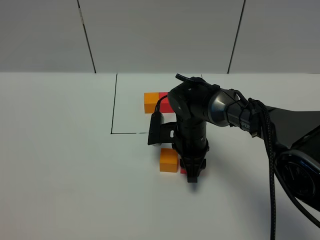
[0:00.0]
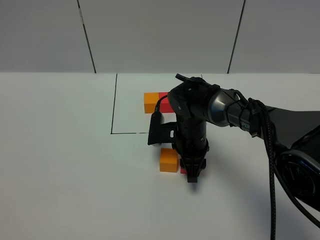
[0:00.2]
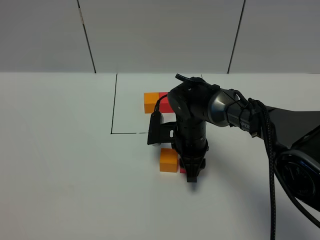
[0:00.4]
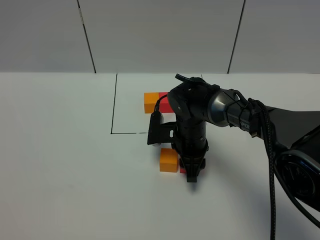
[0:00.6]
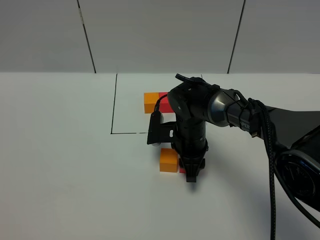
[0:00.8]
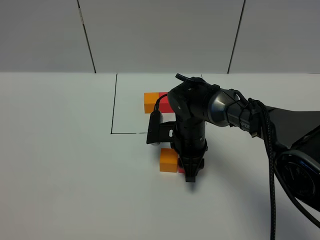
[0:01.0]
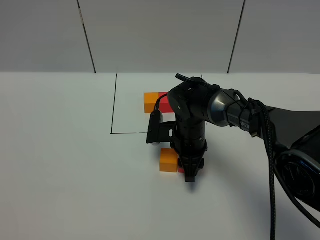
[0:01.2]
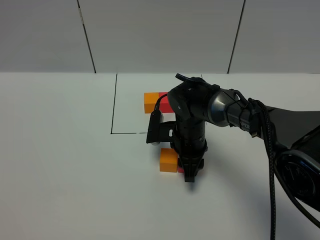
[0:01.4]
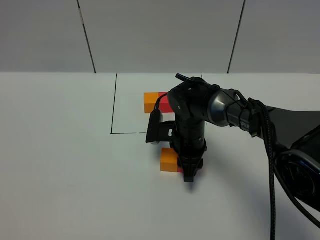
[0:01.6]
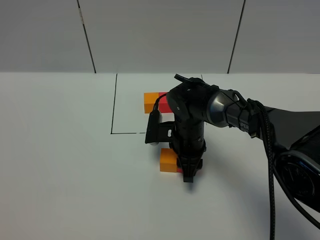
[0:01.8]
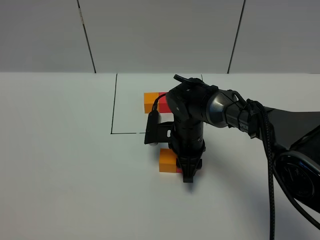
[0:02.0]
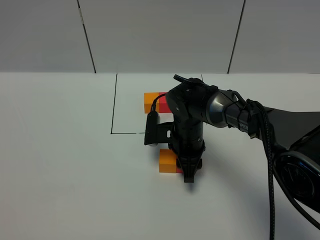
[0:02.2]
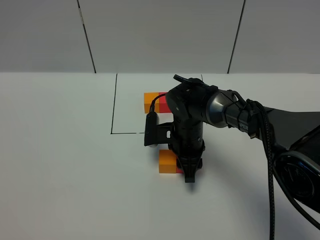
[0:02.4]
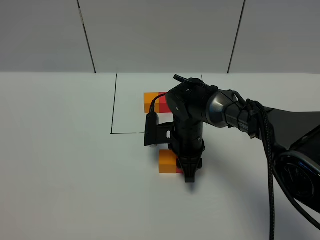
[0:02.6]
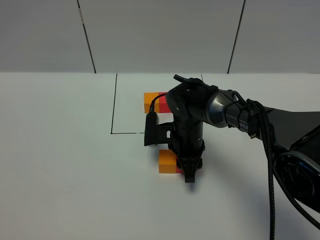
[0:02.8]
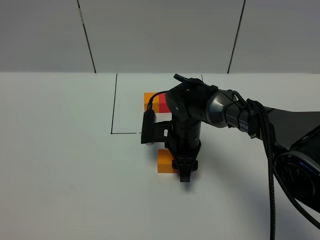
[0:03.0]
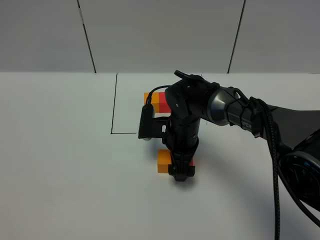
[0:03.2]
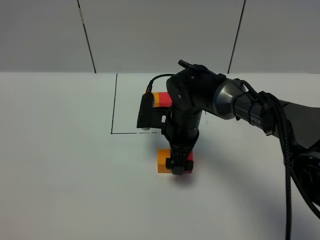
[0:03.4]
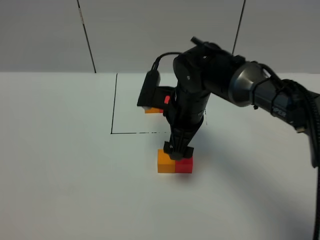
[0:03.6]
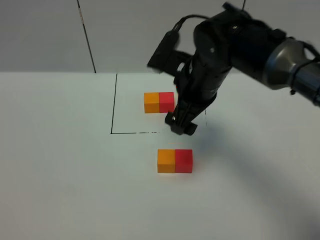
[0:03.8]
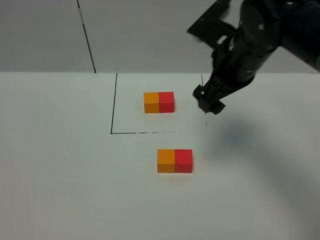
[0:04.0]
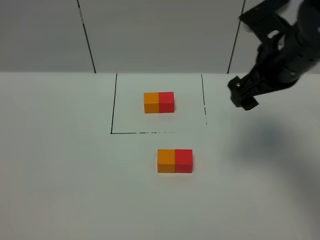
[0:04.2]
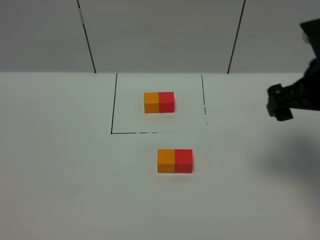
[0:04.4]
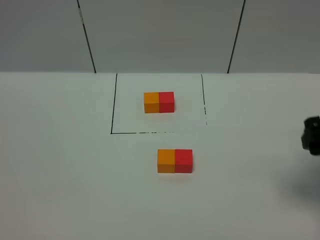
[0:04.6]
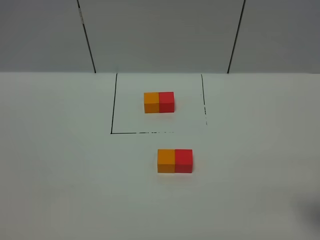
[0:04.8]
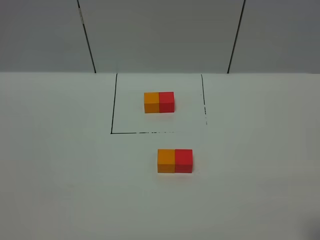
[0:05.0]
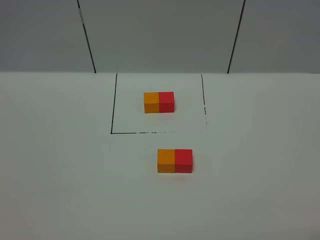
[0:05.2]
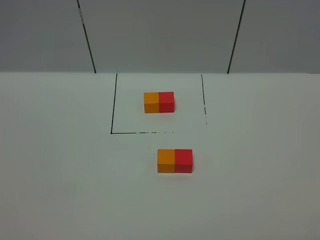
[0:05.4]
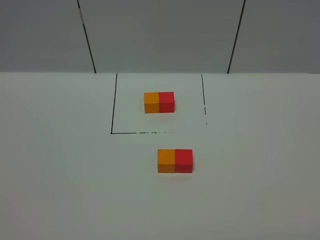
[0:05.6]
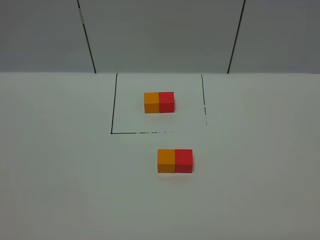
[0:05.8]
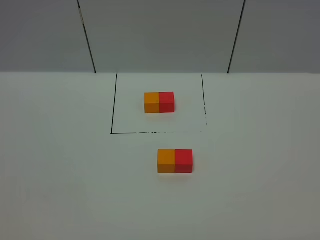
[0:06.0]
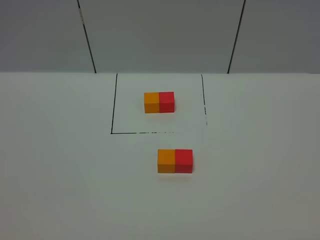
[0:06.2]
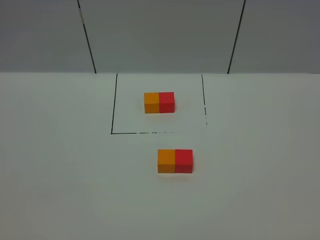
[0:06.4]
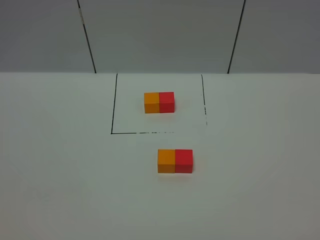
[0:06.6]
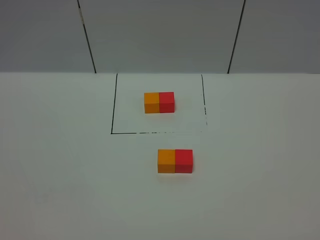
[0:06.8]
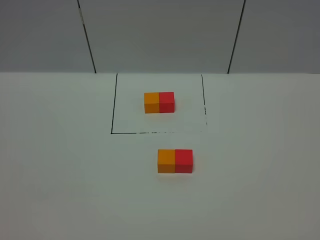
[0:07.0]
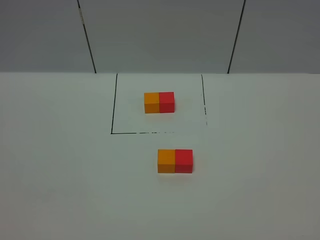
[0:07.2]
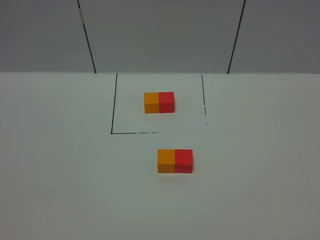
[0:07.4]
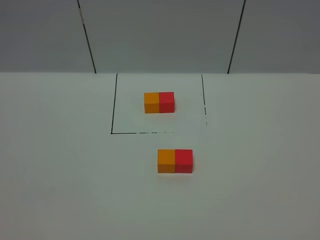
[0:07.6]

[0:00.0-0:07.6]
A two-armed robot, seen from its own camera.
Task of the whole recording: According to the building block template in front, assemble the scattered blocks together.
Step, 0:00.0 to 0:04.2: Put the red cube on the right of the orange cube.
0:00.0 to 0:01.6: Both grippers stay about where they are.
0:01.6 to 0:03.0: The grippers move only a little.
0:03.0 to 0:04.6: The right gripper heads to the right, upward and backward, covering approximately 35 cm, and opens up.
0:04.6 to 0:06.0: The right gripper shifts roughly 20 cm backward.

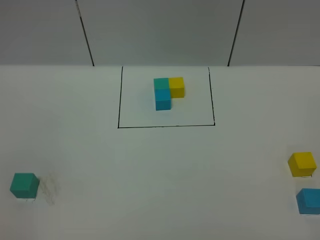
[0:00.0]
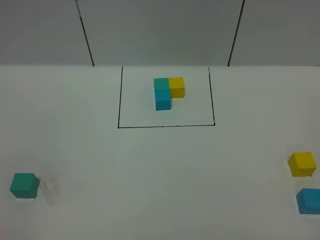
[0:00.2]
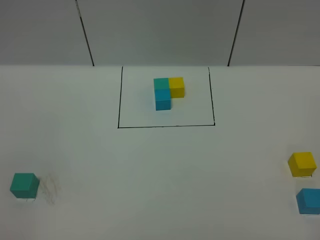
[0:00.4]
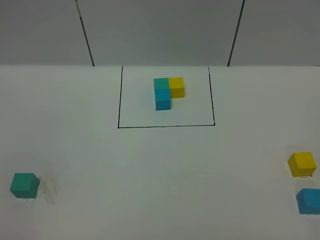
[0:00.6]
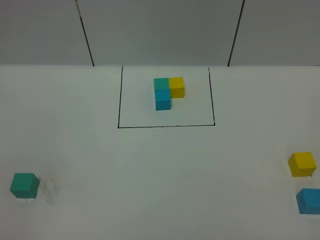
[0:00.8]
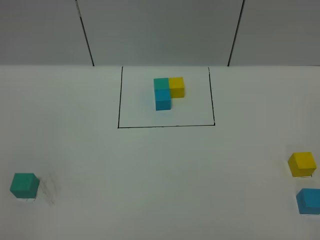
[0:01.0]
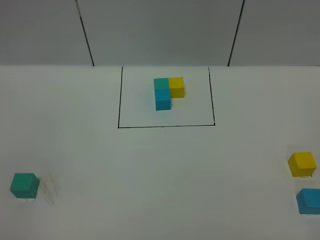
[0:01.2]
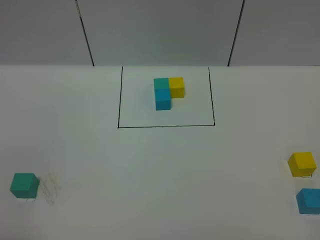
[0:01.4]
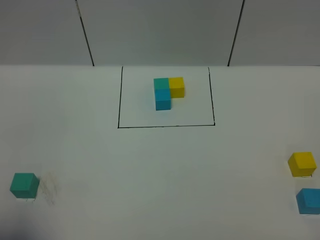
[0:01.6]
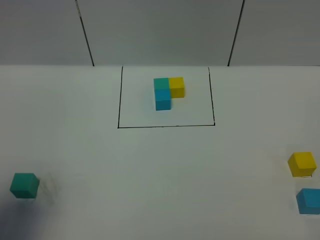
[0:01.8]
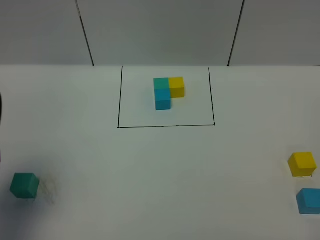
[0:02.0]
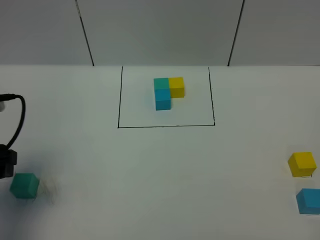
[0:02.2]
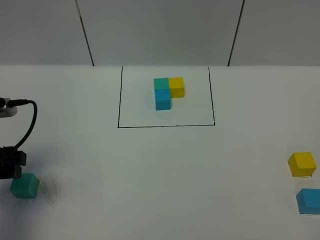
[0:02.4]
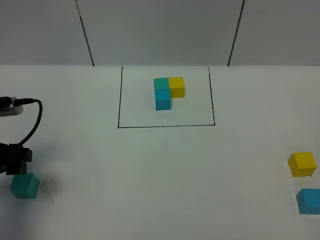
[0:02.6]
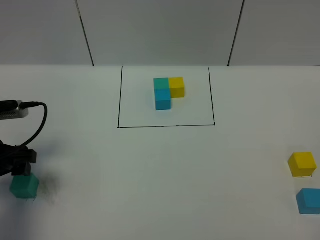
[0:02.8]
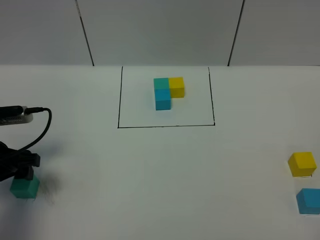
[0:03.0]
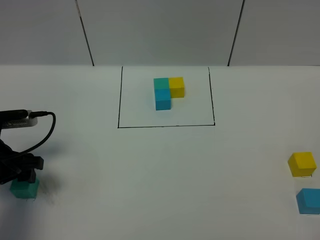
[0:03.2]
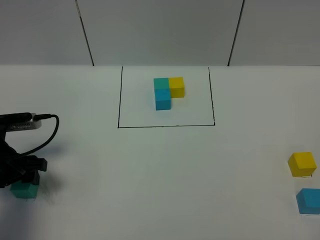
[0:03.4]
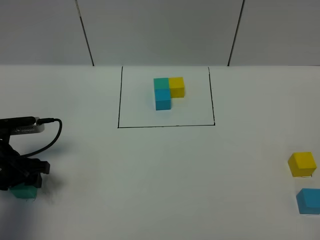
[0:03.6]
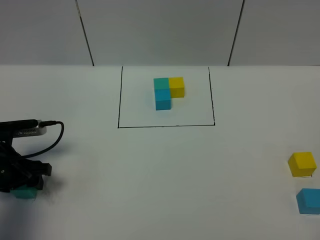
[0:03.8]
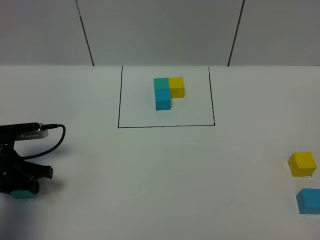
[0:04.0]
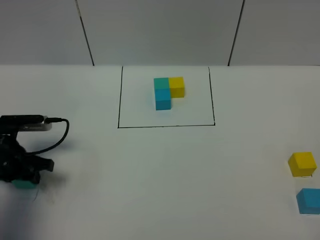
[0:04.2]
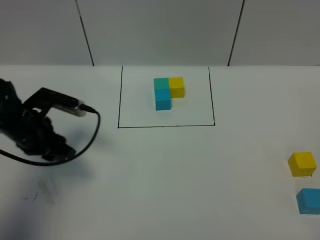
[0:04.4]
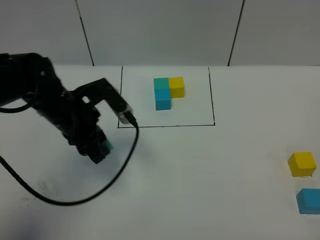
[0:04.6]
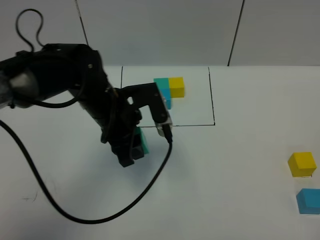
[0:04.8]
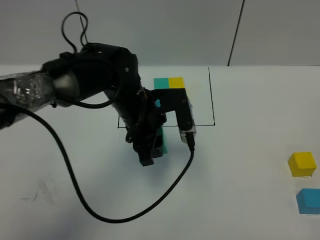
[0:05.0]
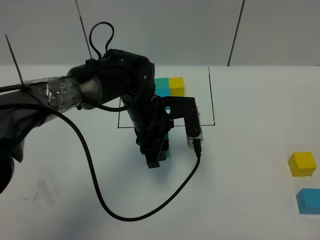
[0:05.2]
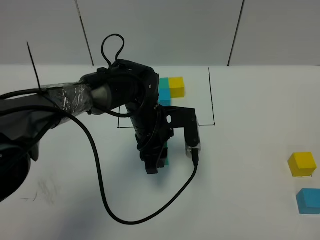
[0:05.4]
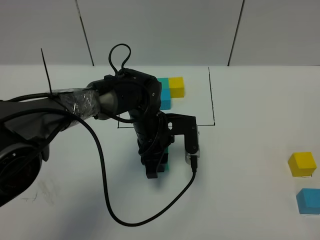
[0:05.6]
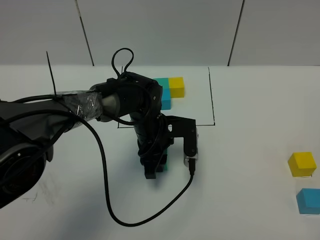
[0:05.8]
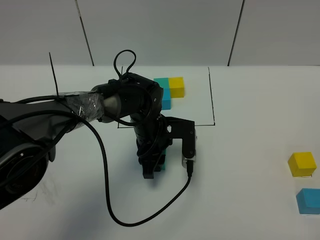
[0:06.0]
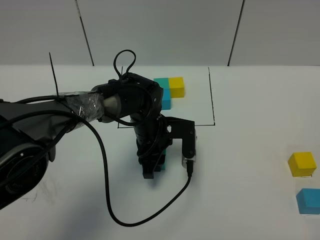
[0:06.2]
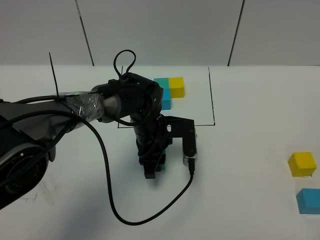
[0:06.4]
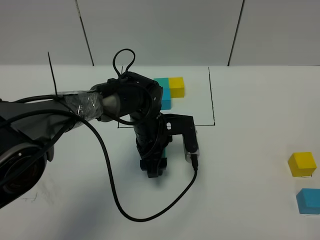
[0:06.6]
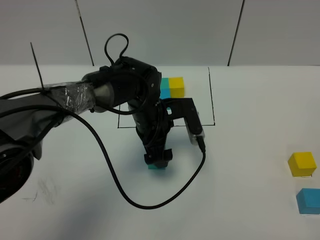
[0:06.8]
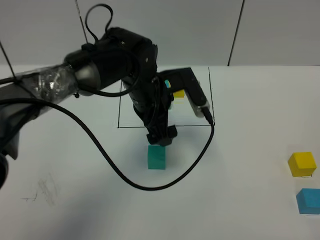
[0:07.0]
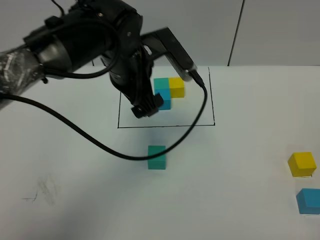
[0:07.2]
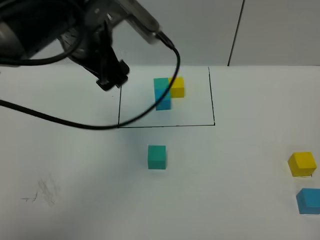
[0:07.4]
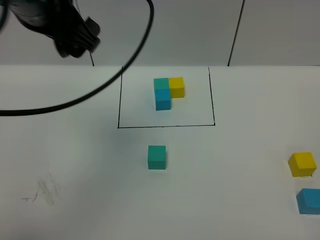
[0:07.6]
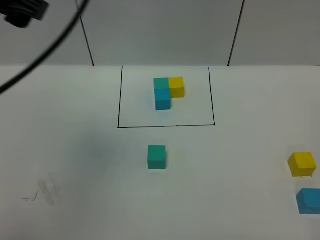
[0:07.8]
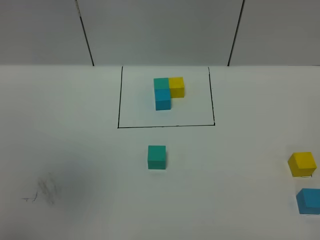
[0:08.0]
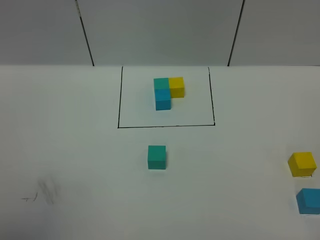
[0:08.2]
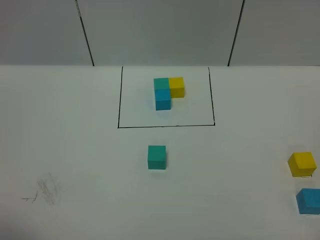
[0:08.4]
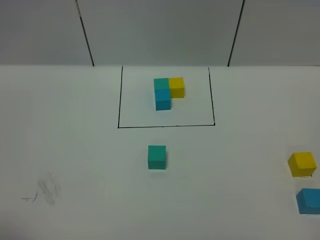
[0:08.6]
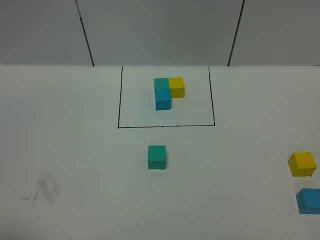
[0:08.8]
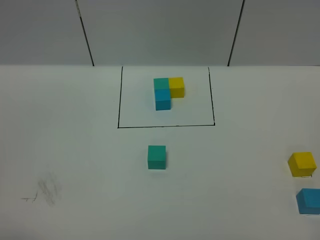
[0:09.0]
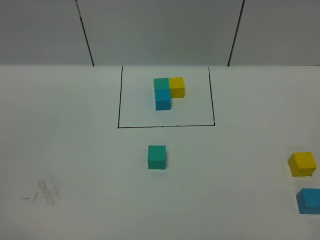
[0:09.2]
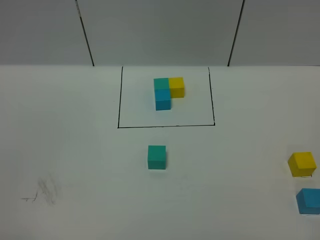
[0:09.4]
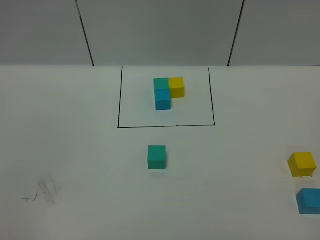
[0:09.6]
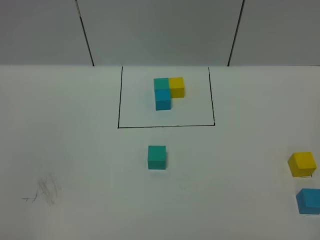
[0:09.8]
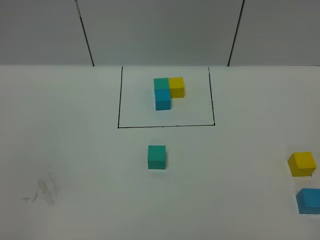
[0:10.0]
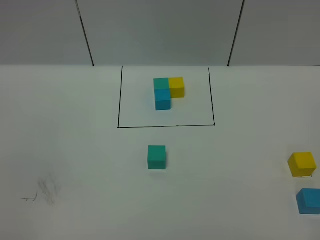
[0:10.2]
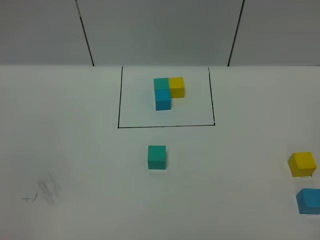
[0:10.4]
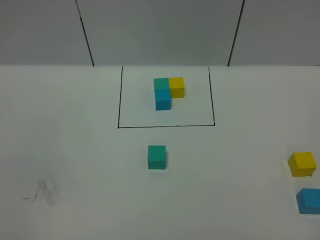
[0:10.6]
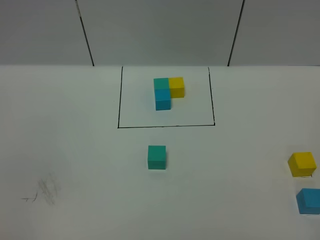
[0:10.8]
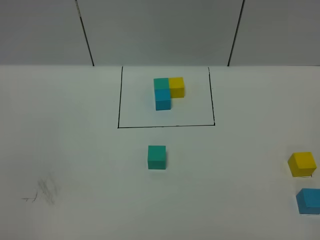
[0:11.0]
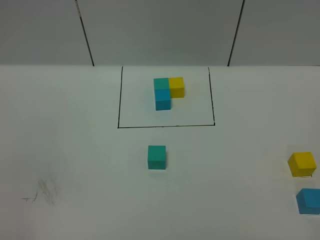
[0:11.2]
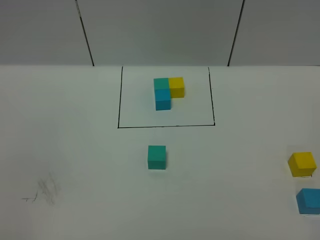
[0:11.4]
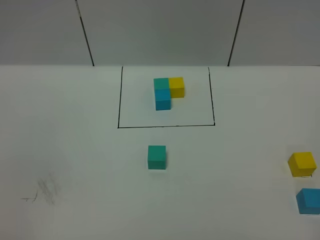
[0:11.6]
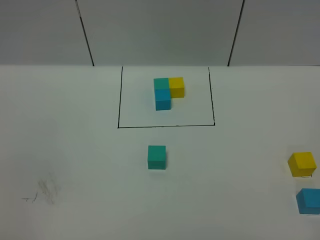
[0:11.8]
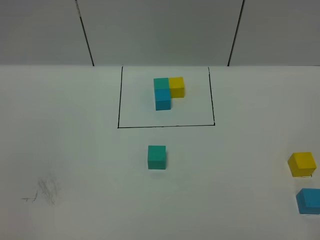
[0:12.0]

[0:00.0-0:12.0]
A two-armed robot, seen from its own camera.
Task of the whole recording: According to the building block template in front, assemble the scattered blocks together.
Step, 0:02.0 to 0:07.0: Put the green cube in the center of the table.
0:00.0 to 0:01.6: The left gripper travels forward by some 10 cm.
0:01.6 to 0:03.0: The left gripper shifts about 25 cm forward and downward.
0:03.0 to 0:04.4: The left gripper heads to the right and forward, covering approximately 10 cm, and closes up.
0:04.4 to 0:06.0: The left gripper heads to the right, covering roughly 20 cm.
0:06.0 to 0:07.6: The left gripper travels upward by about 35 cm, and opens its fingers.
0:07.6 to 0:09.0: The left gripper shifts roughly 35 cm backward and to the left.

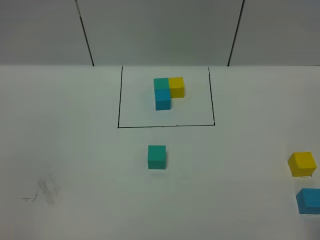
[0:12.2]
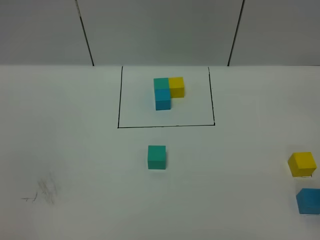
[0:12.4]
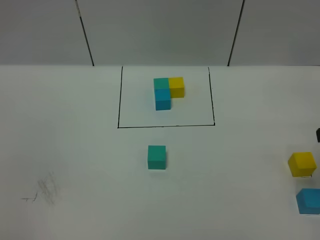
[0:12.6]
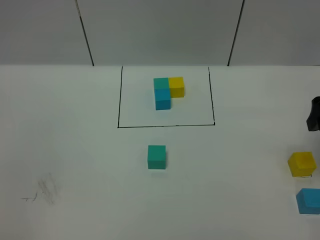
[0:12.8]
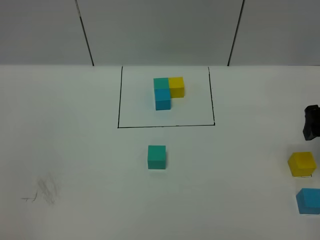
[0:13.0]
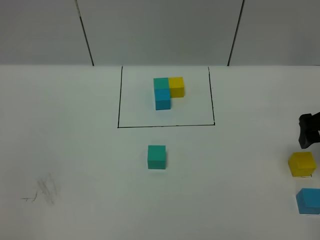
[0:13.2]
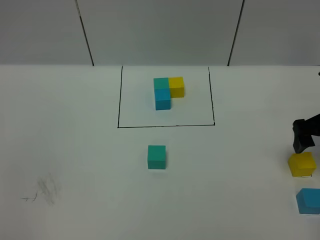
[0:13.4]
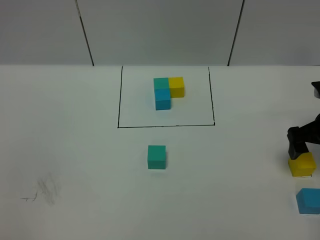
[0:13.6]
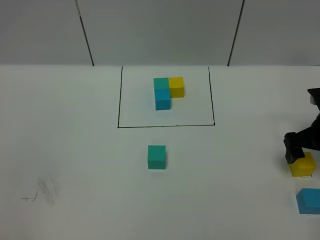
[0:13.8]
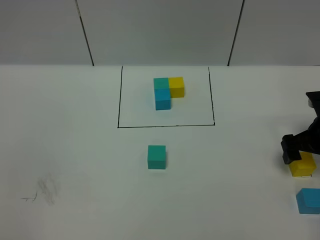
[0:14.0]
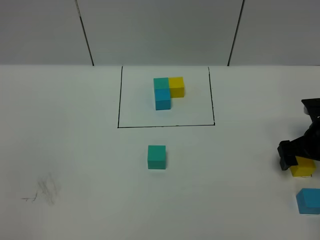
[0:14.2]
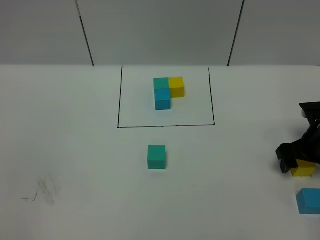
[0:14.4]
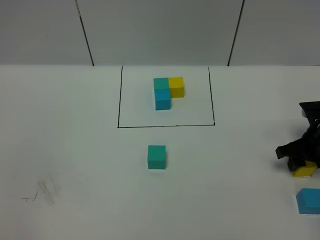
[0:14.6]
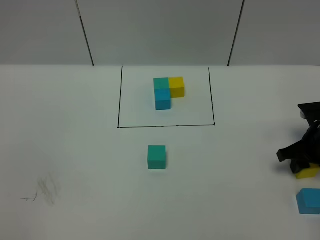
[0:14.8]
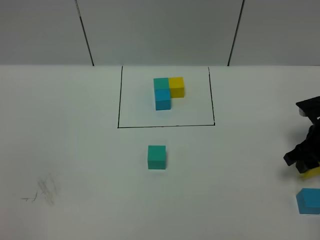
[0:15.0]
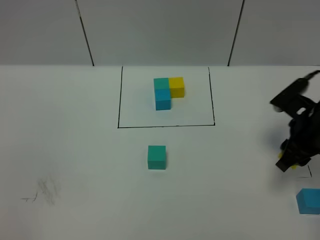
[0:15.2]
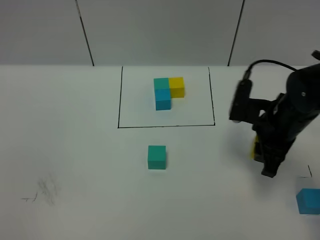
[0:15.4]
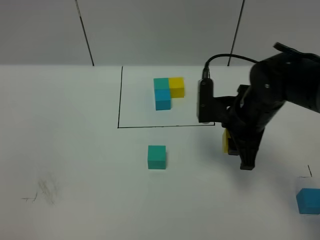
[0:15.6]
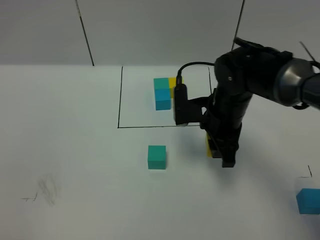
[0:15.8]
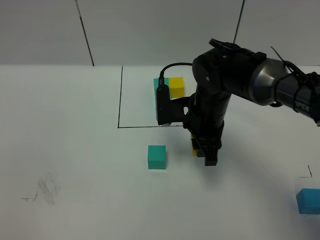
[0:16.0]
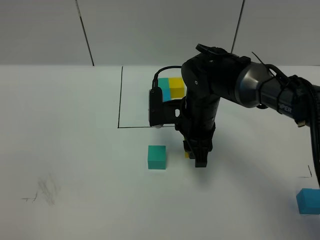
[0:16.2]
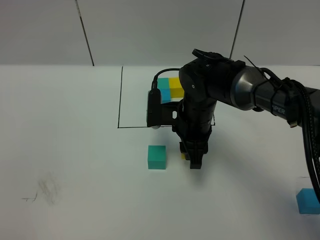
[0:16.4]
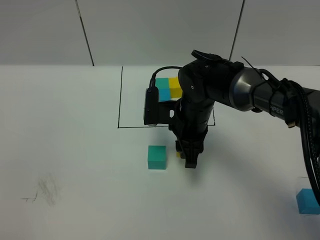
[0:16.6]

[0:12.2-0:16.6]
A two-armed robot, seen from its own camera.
Task of the whole recording: According to the building block template in front, assemble the scattered blocks together.
0:12.2 to 0:13.6: The right gripper travels forward and downward by some 25 cm.
0:13.6 to 0:15.2: The right gripper heads to the left, covering some 5 cm, and closes up.
0:15.2 to 0:16.6: The right gripper travels to the left by some 20 cm.
